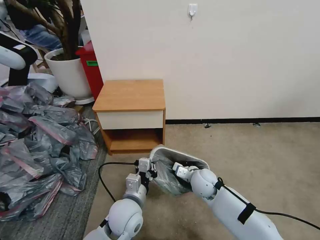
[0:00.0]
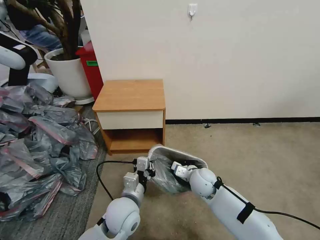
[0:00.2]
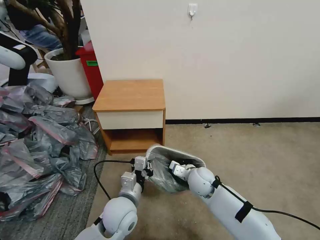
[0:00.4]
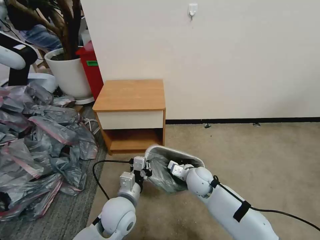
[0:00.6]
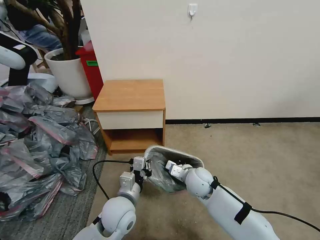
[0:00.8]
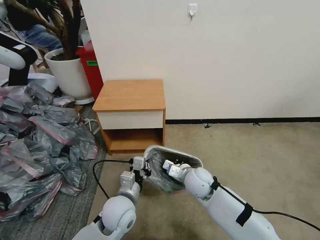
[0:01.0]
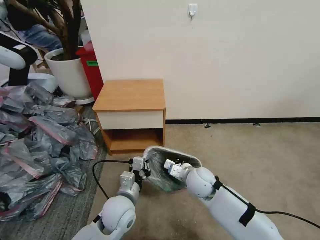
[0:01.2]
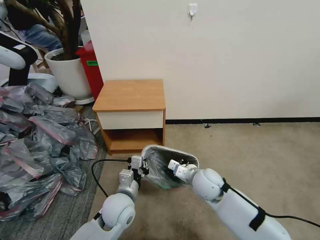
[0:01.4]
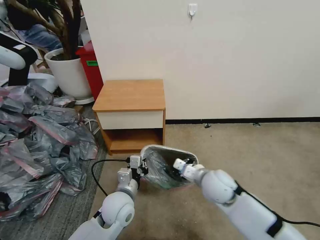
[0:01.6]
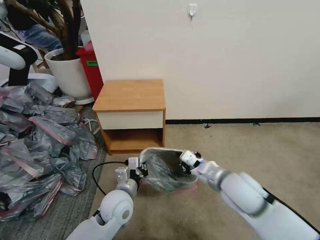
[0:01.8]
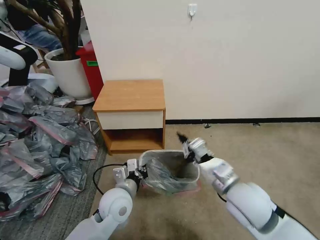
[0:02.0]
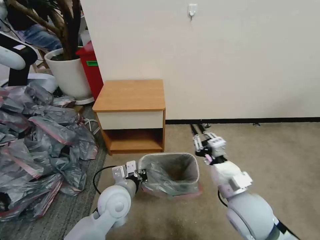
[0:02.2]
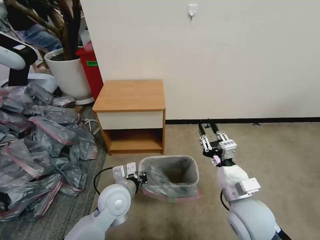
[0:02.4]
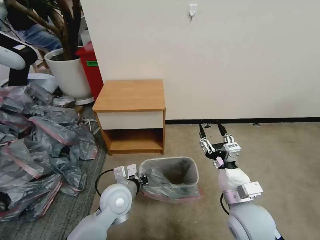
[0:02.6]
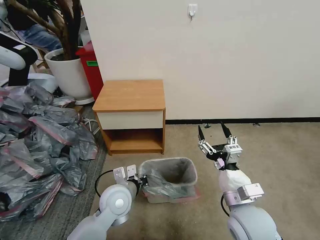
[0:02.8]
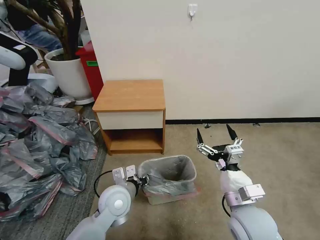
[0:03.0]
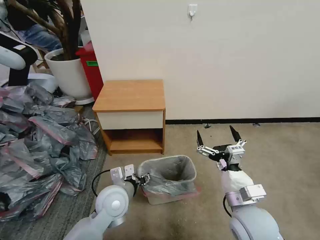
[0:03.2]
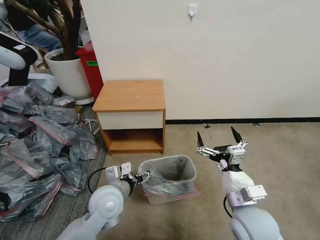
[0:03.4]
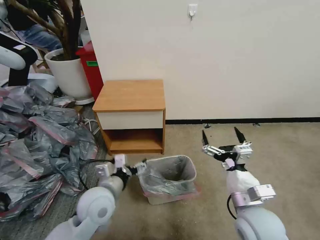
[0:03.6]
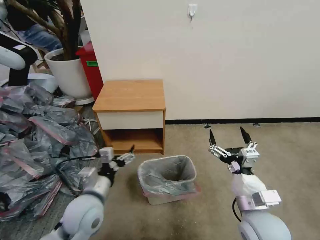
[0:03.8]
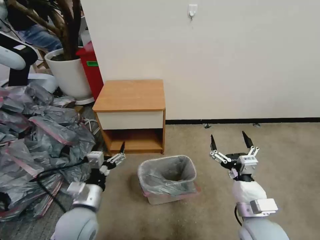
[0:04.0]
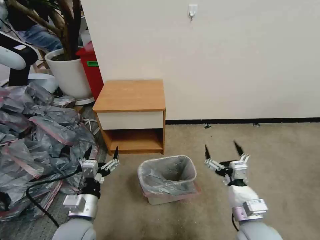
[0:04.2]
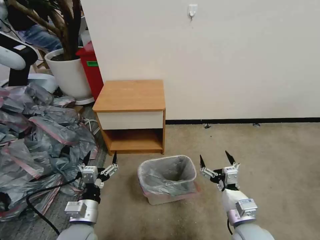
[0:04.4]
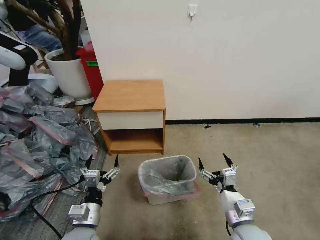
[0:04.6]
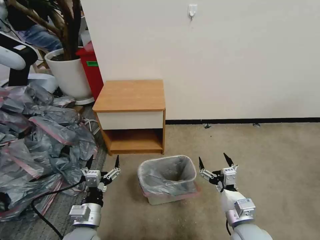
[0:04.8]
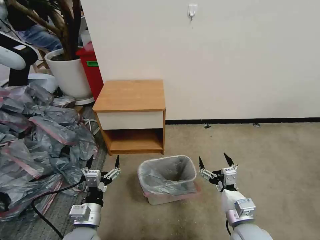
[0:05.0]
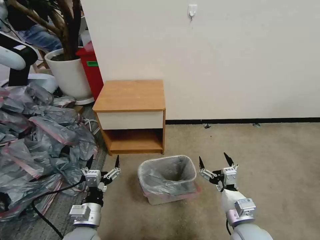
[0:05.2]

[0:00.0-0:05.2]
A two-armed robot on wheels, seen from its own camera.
Task of the whole recording: Pick up the garbage bag from the table and place it over the trash can.
0:00.0 to 0:01.8: The right gripper heads upward and backward, covering approximately 15 cm.
0:01.8 to 0:03.4: The left gripper opens, while the right gripper heads backward, covering about 10 cm, and opens its fingers.
0:03.4 to 0:05.2: The left gripper is displaced backward, downward and to the left by approximately 15 cm. The right gripper is displaced downward by about 5 cm.
